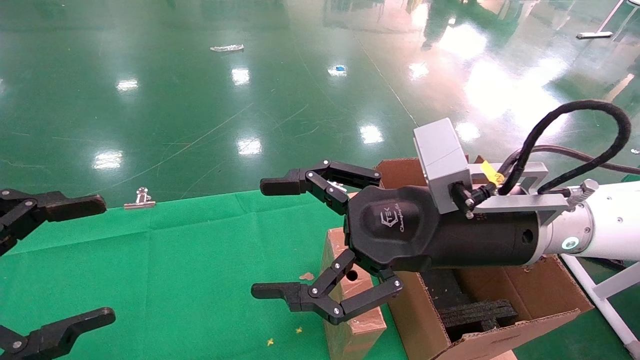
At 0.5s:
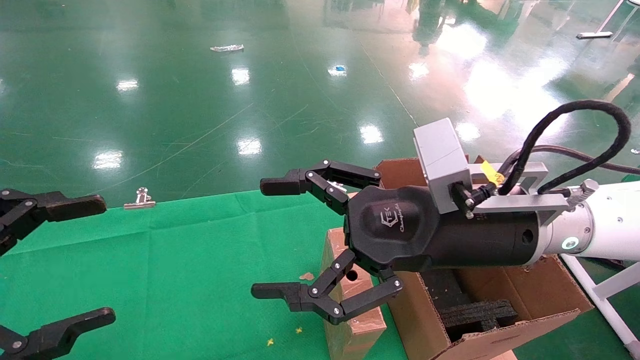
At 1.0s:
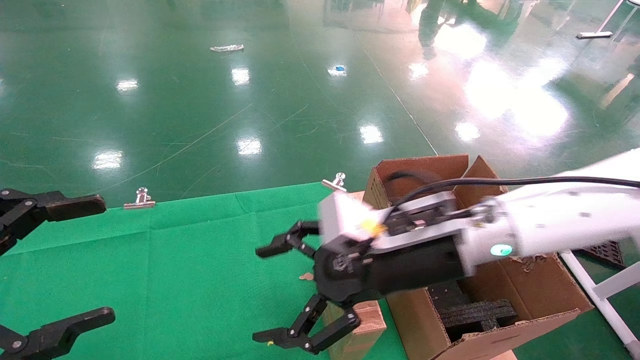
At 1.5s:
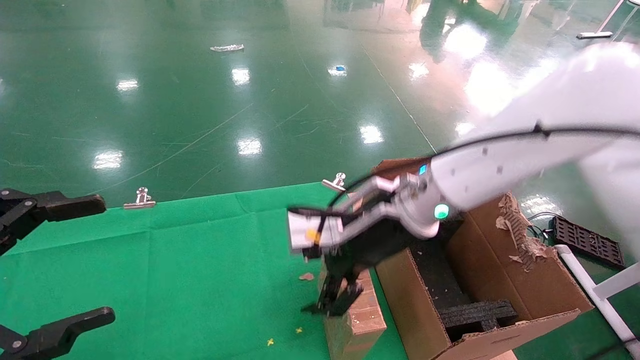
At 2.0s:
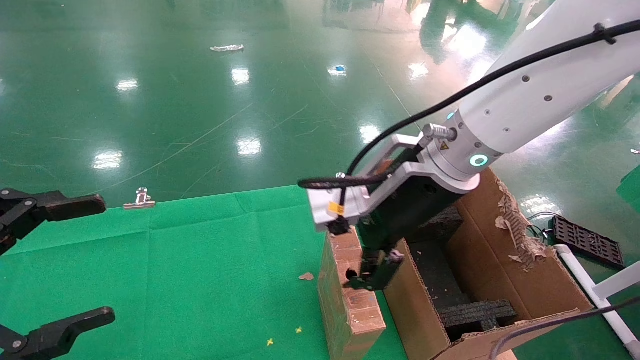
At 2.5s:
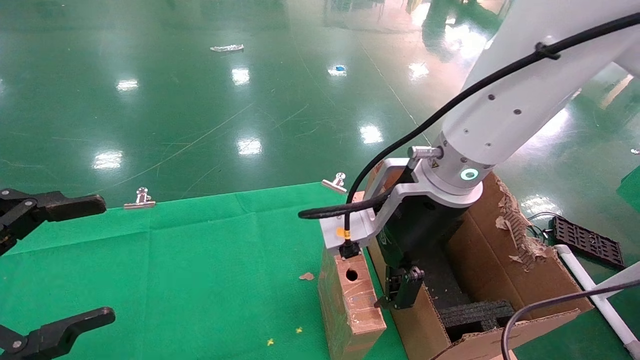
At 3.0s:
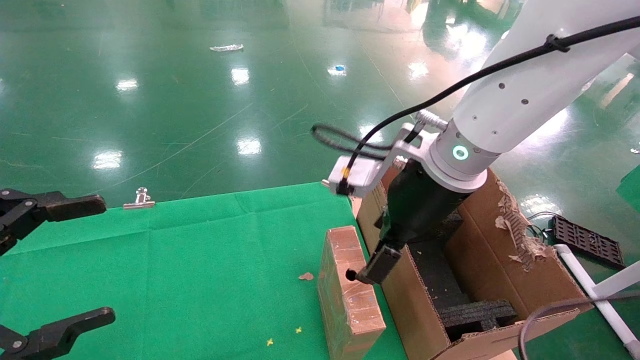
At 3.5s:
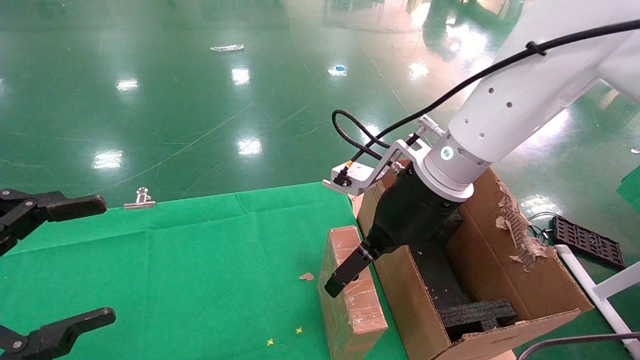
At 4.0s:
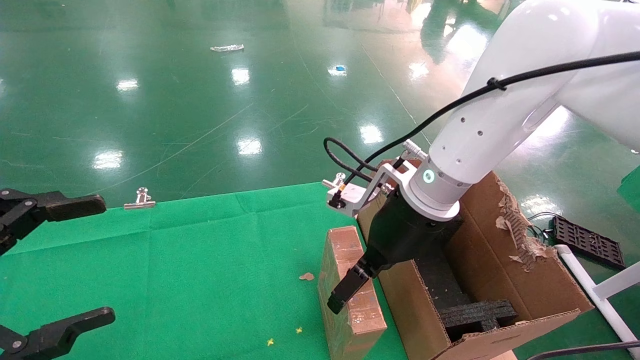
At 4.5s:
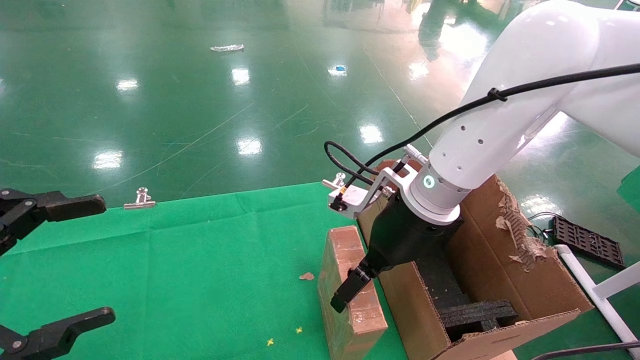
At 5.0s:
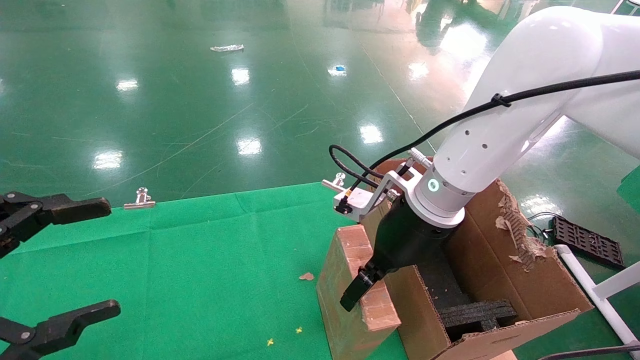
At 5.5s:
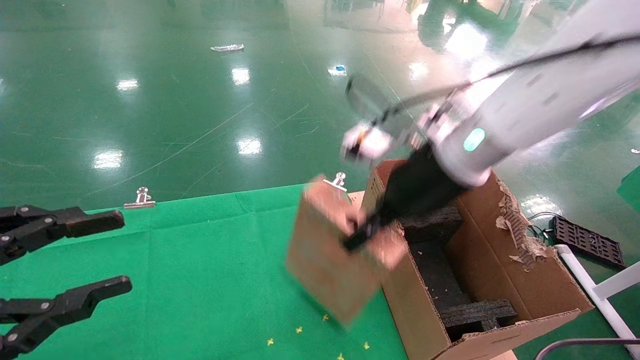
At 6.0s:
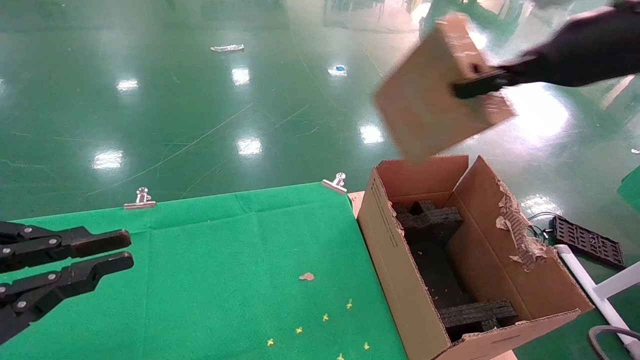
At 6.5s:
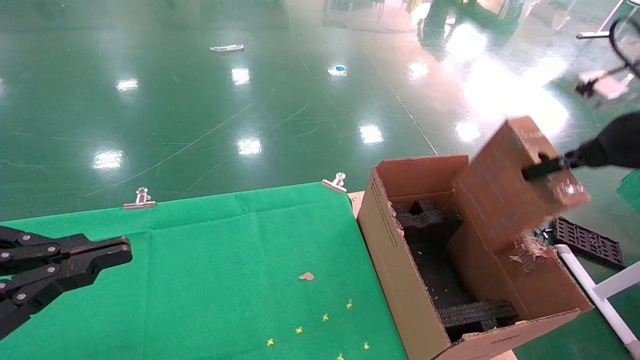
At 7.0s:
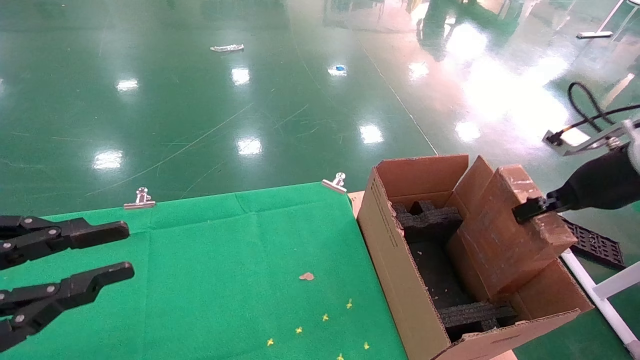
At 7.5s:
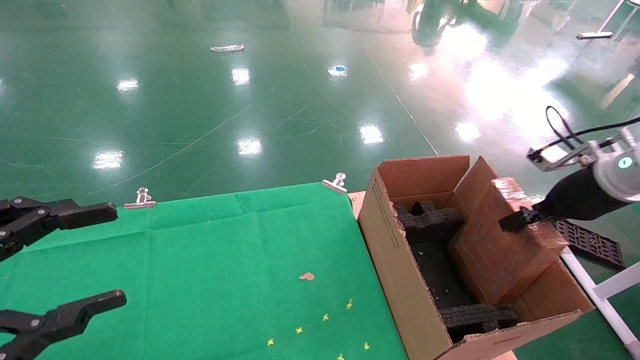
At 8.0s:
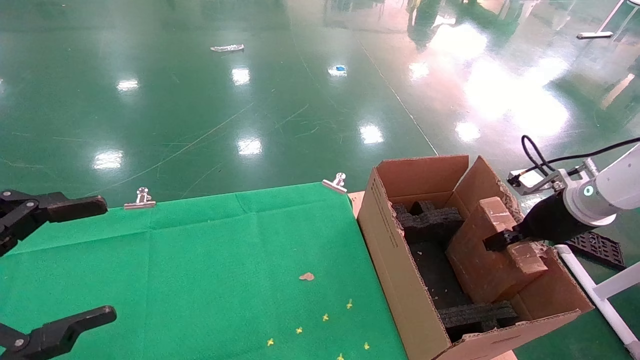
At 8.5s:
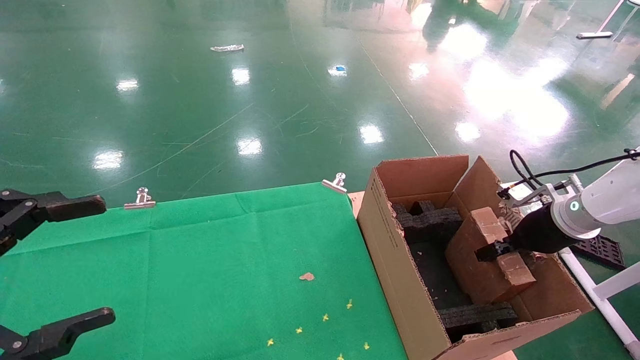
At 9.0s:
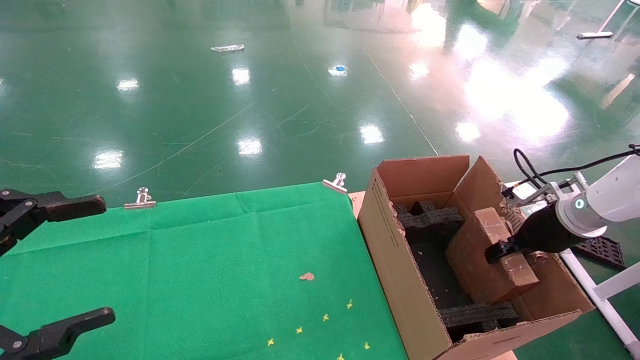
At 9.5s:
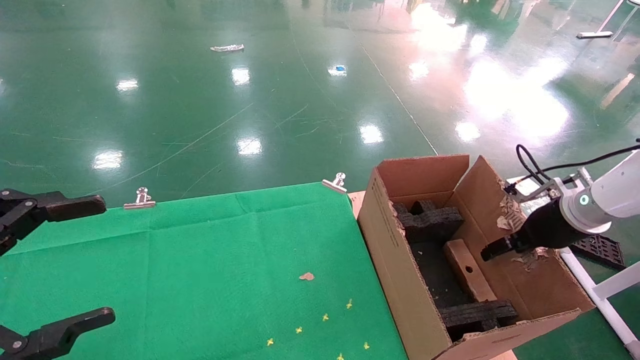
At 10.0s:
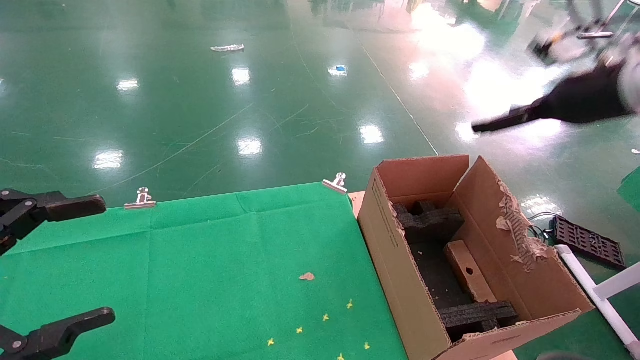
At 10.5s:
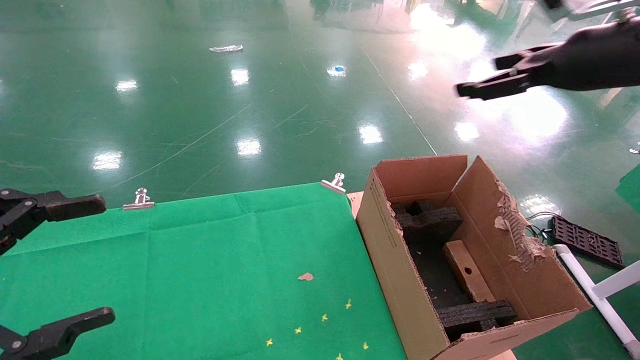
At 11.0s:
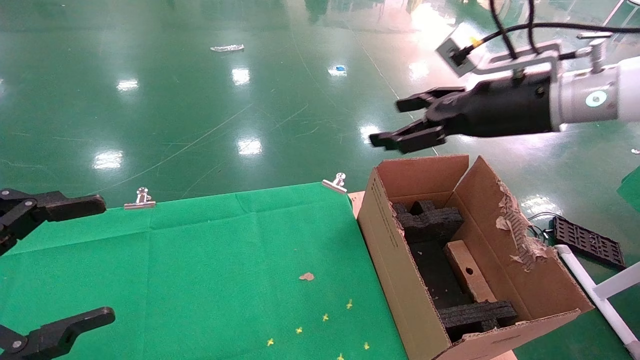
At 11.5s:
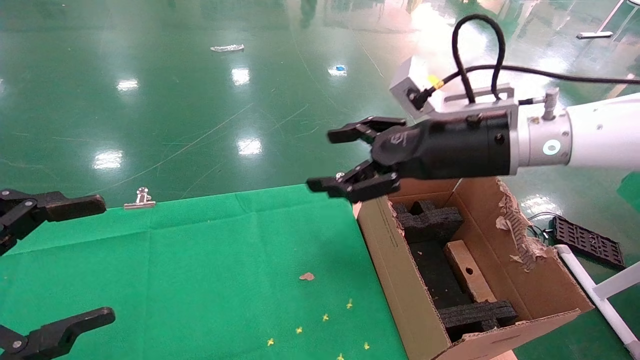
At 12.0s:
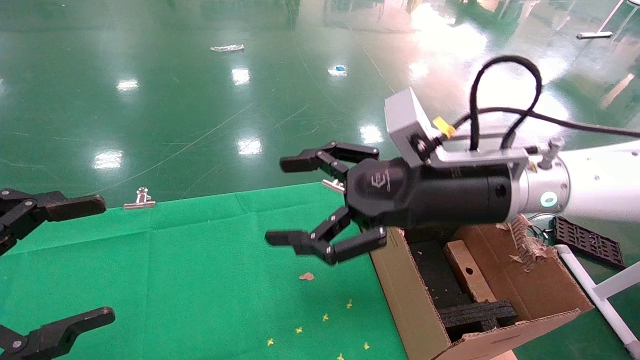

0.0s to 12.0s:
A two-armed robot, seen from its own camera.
Task of the whole recording: using a robotic arm to pick up a cardboard box and palace it the carton.
Step, 1.0s to 5.0s: Pick up the mouse and the power cord paper box.
Step, 5.5s to 9.5s: Place the mouse and the power cord paper box into the container.
0.0s to 2.0s: The right gripper goes about 5 cm forward.
2.0s to 4.0s: The right gripper ends up roughly 5 cm from where it was.
4.0s to 6.0s: The right gripper travels to the right and upward by about 25 cm, and closes its fingers. The left gripper closes its fingers.
6.0s to 8.0s: The right gripper shifts roughly 25 cm downward and to the right. The left gripper opens up.
8.0s to 10.0s: The right gripper heads upward, covering roughly 15 cm, and opens up.
10.0s to 12.0s: The right gripper moves to the left, roughly 25 cm.

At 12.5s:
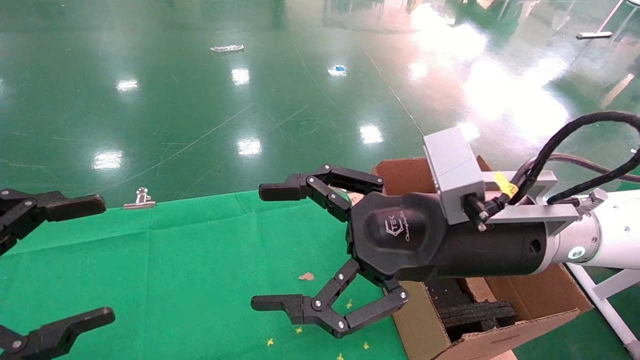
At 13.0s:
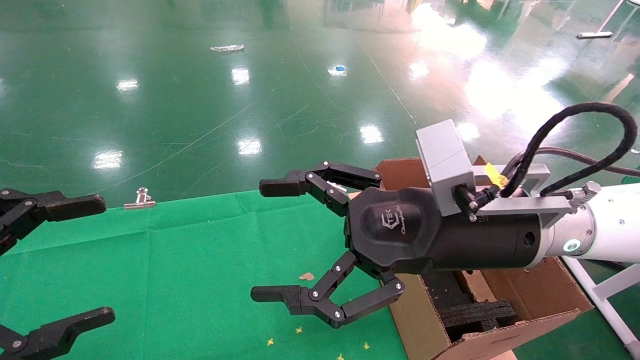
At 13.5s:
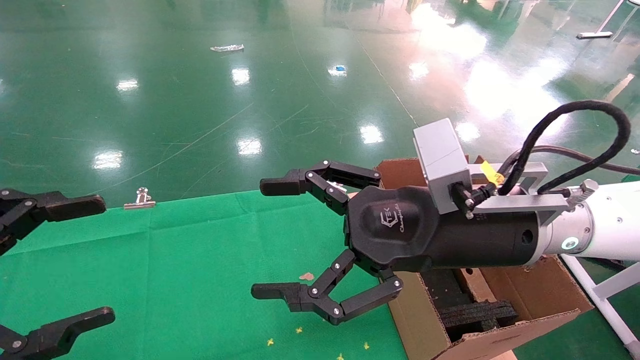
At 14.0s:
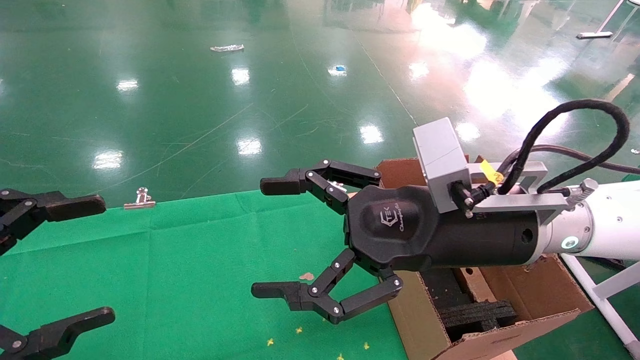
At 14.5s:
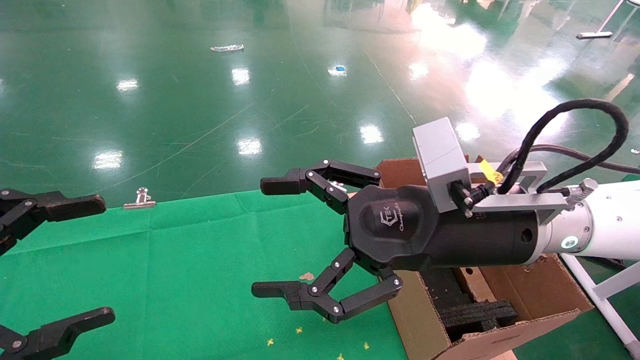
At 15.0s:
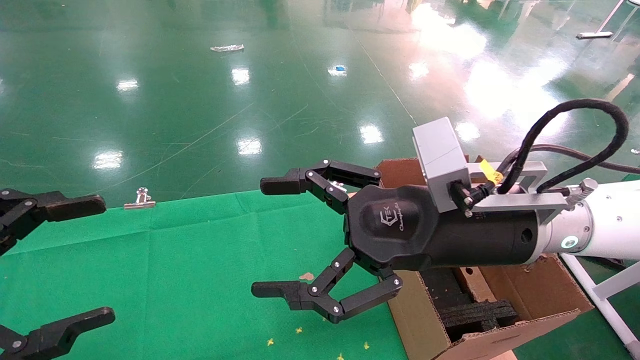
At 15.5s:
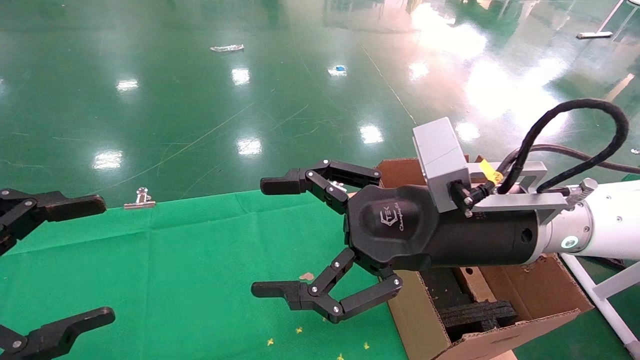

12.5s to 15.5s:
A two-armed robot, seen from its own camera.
Task of the whole recording: using a robotic arm to pick up a cardboard box and palace it the carton.
12.5s to 15.5s: Both grippers stay put.

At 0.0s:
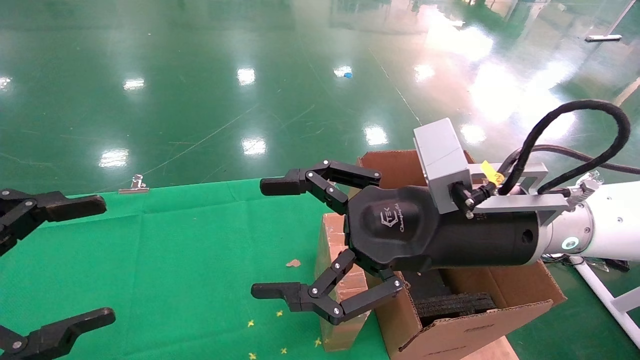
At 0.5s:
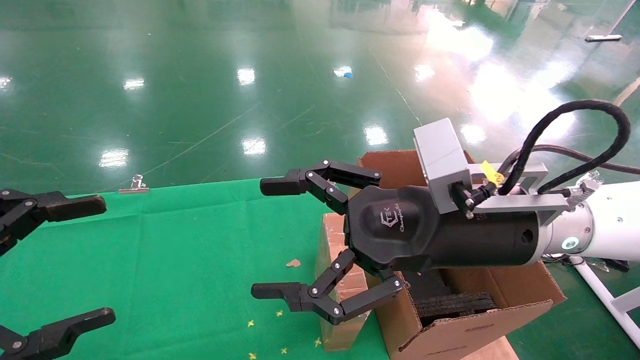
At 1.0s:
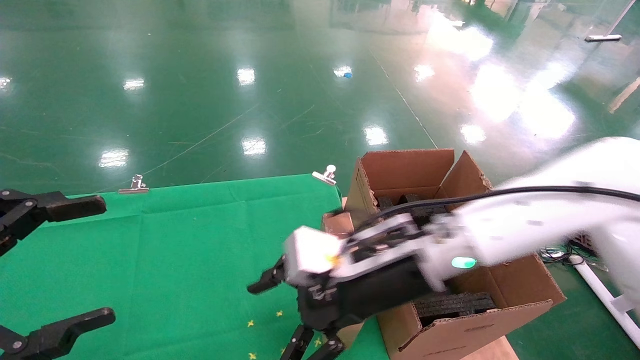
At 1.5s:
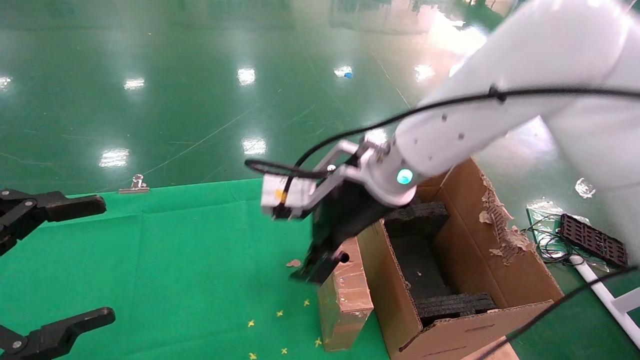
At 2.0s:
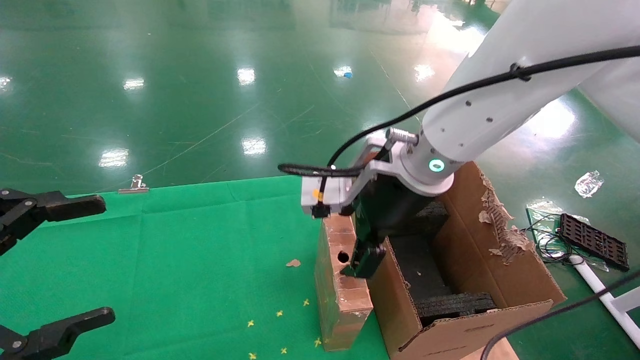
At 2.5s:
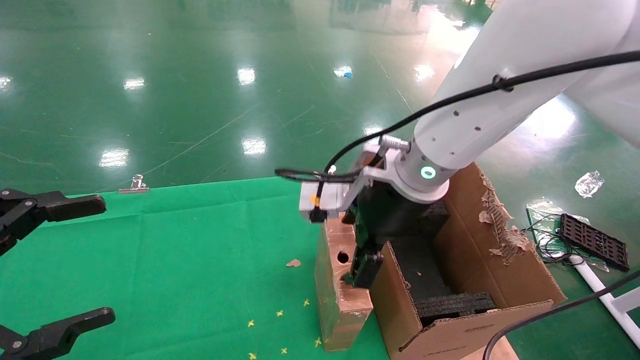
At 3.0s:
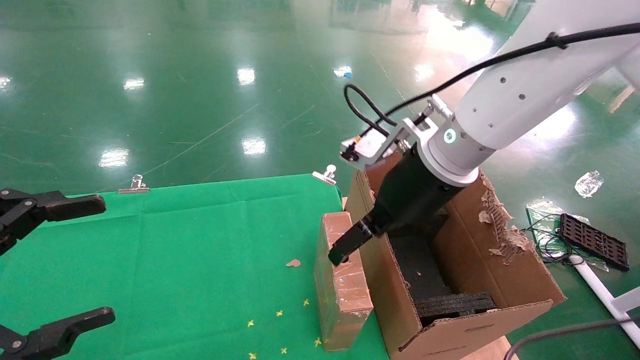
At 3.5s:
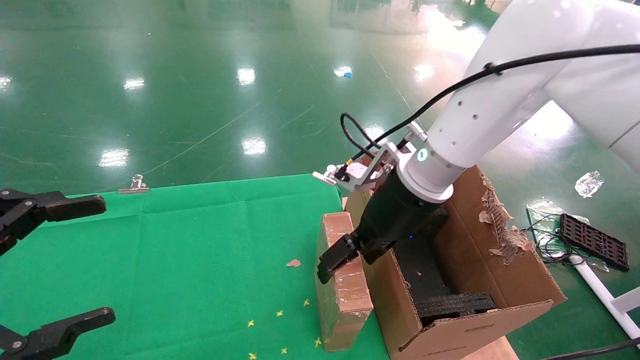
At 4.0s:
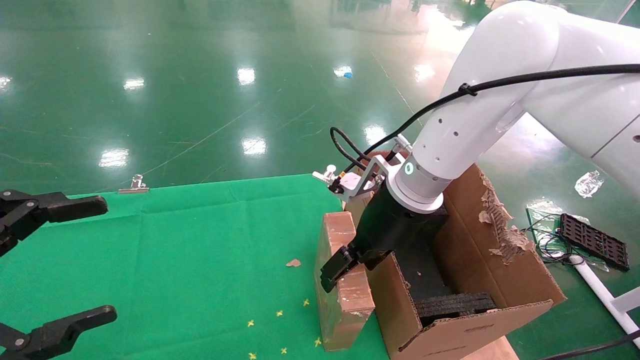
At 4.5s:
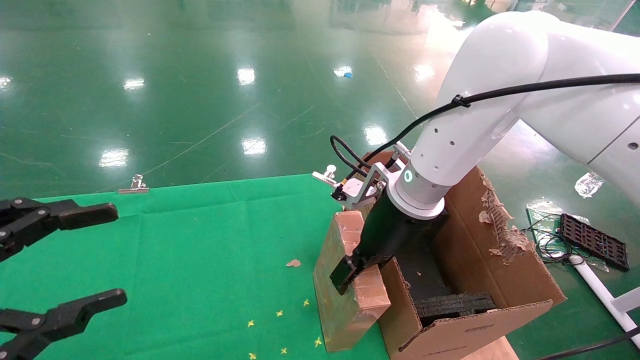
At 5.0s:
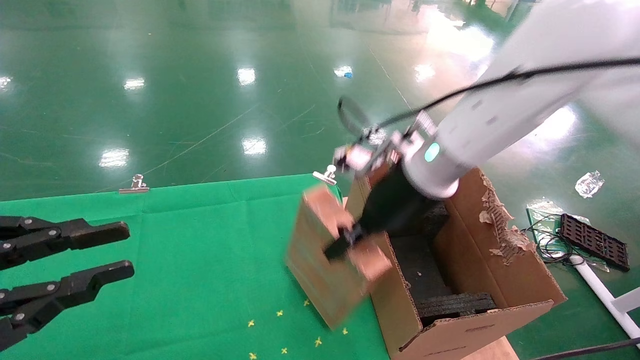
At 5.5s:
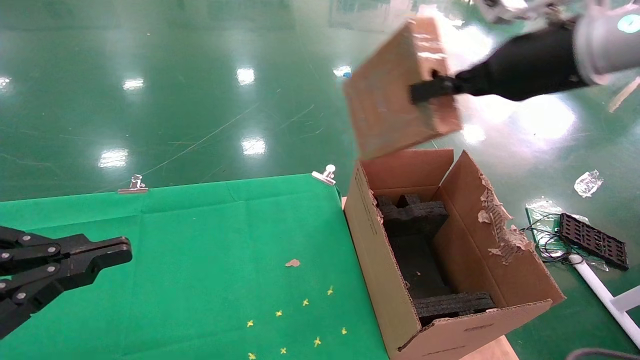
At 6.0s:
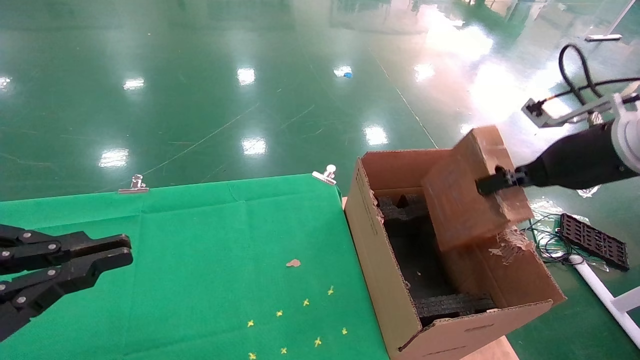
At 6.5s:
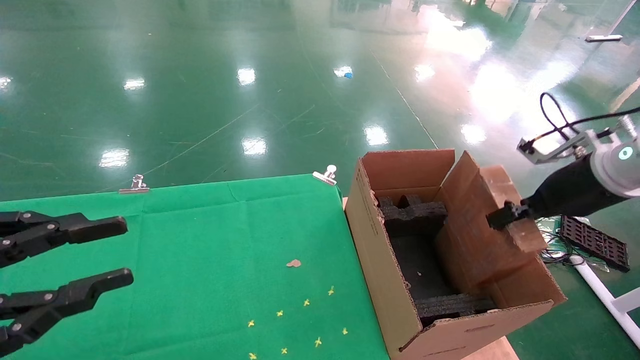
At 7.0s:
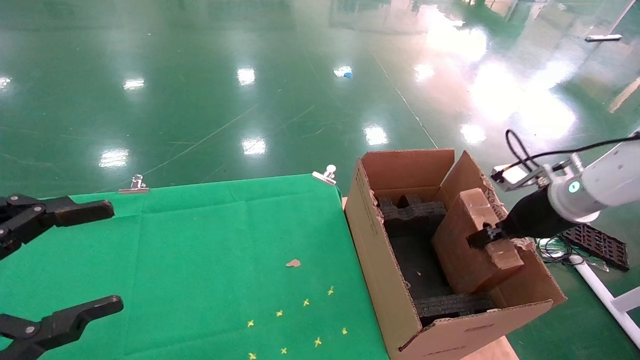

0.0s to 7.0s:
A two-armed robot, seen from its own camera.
Task of the whole recording: using a robotic arm to pick up a cardboard box and palace it the carton.
Step, 1.0s to 4.5s: Pick up the mouse and the power cord paper box.
0.0s to 2.0s: The right gripper is displaced forward and to the left by about 10 cm.
3.5s to 5.0s: The right gripper closes. Meanwhile the left gripper closes up.
5.0s to 7.0s: The left gripper closes, then opens again. Meanwhile the right gripper is displaced to the right and downward by roughly 25 cm.
